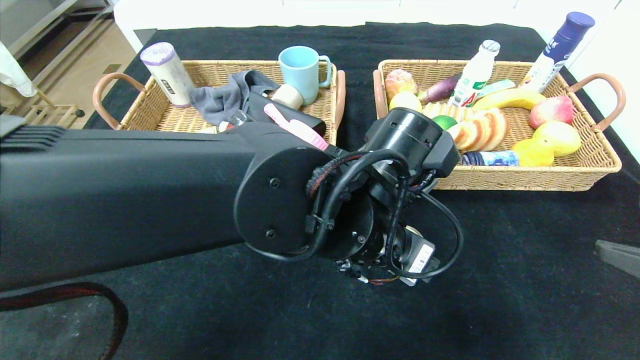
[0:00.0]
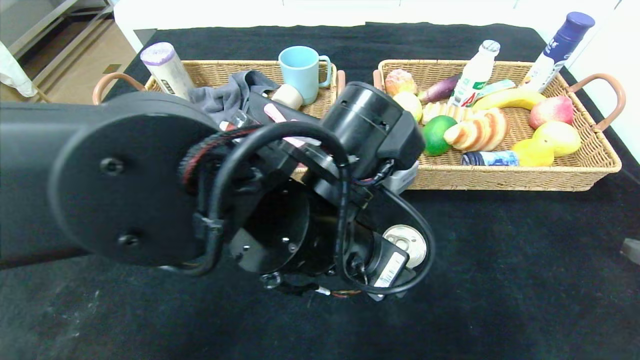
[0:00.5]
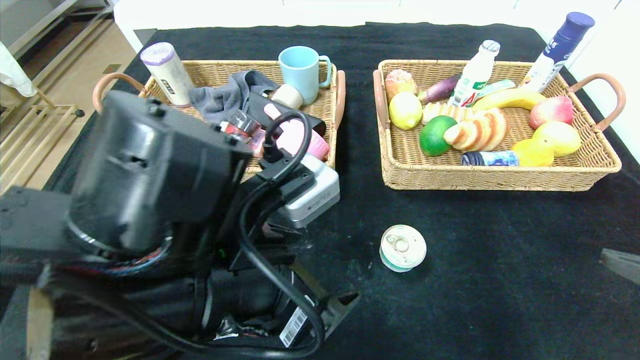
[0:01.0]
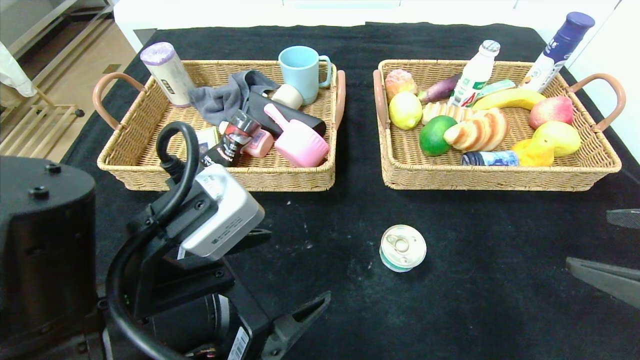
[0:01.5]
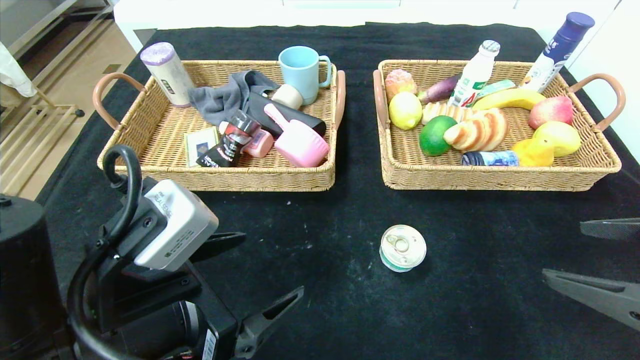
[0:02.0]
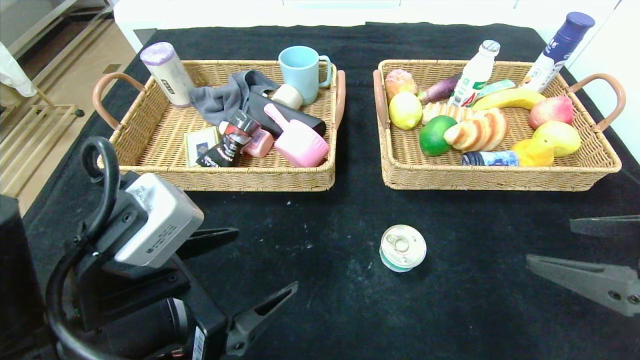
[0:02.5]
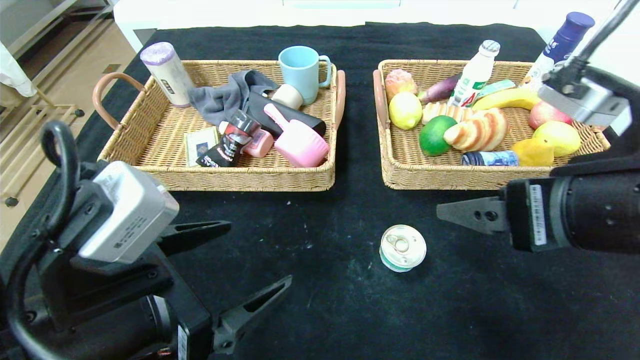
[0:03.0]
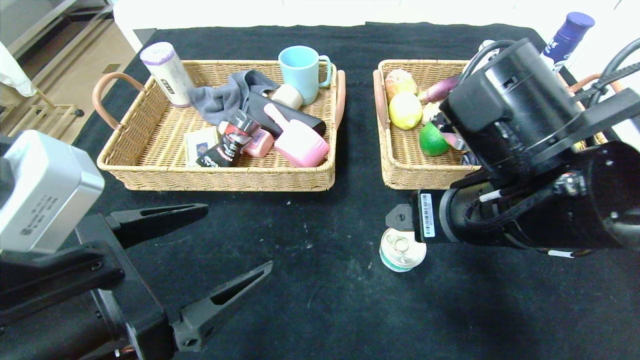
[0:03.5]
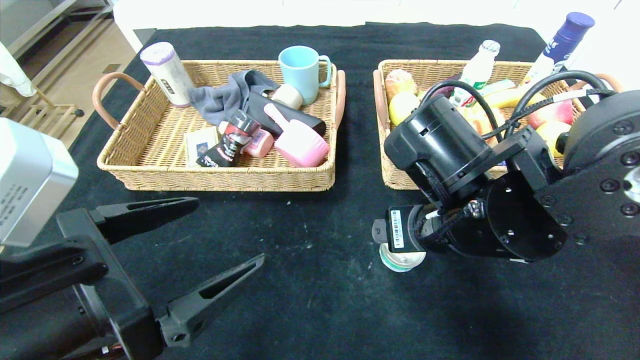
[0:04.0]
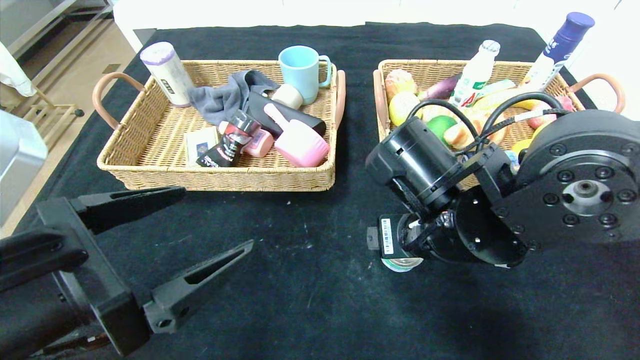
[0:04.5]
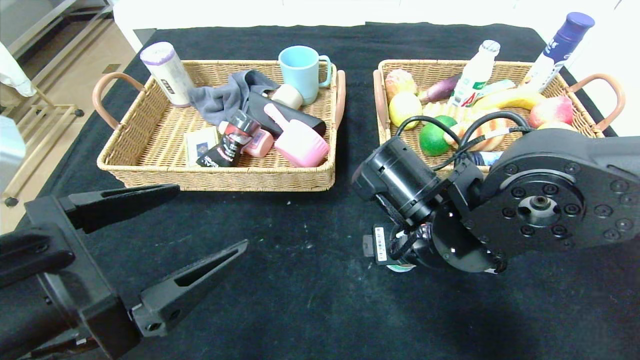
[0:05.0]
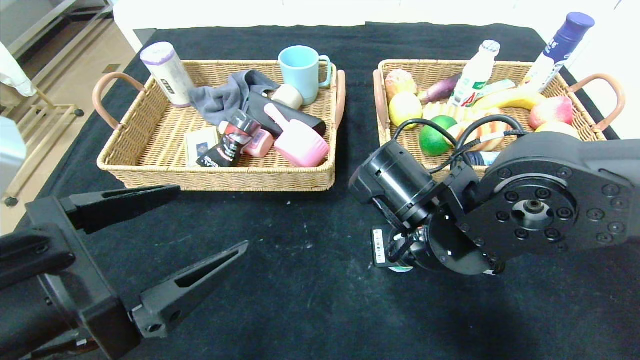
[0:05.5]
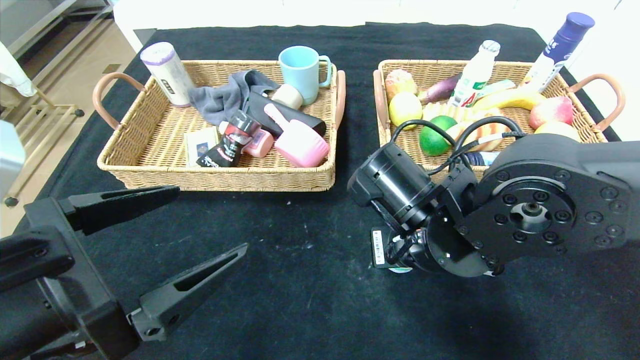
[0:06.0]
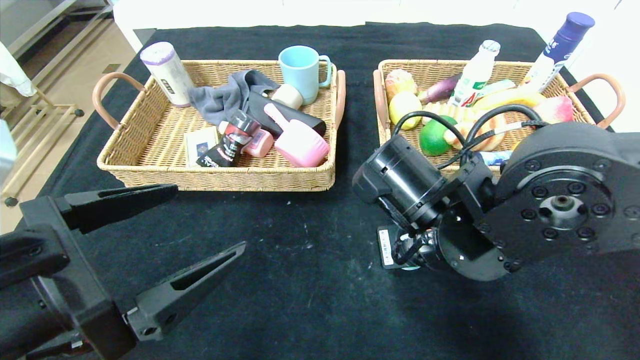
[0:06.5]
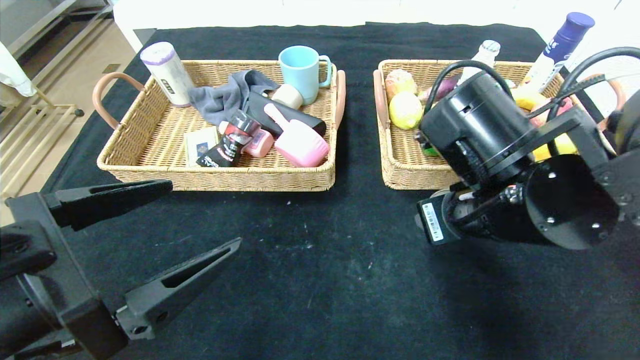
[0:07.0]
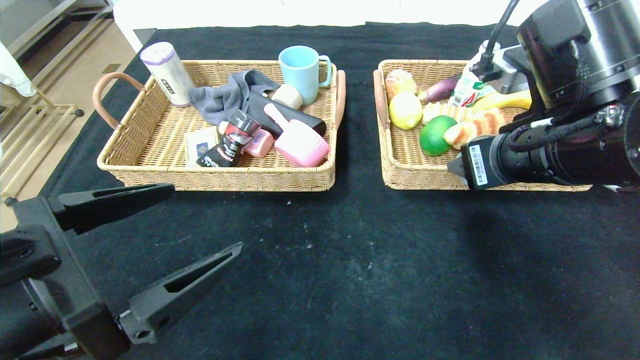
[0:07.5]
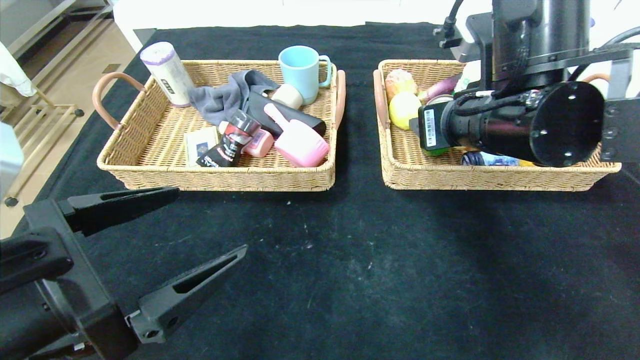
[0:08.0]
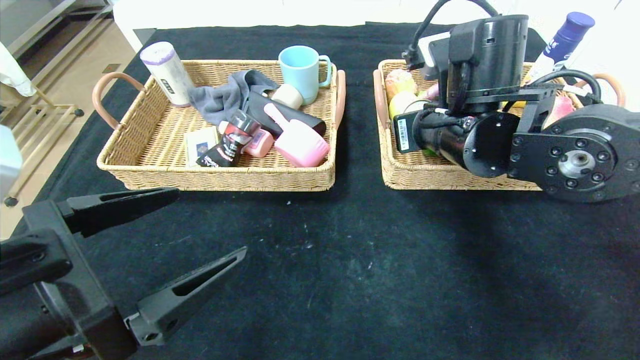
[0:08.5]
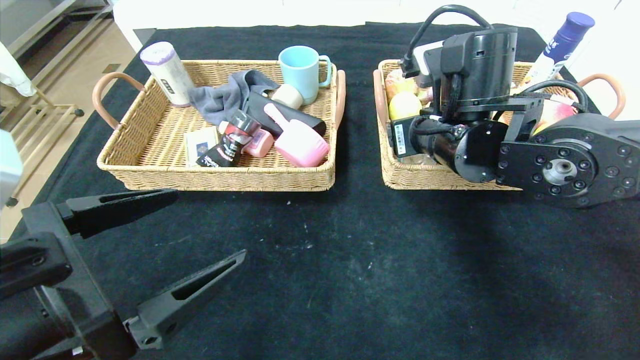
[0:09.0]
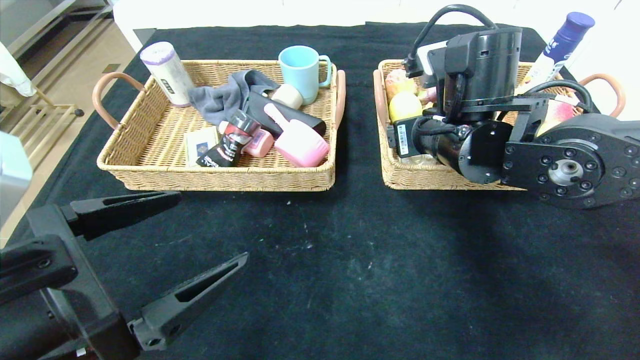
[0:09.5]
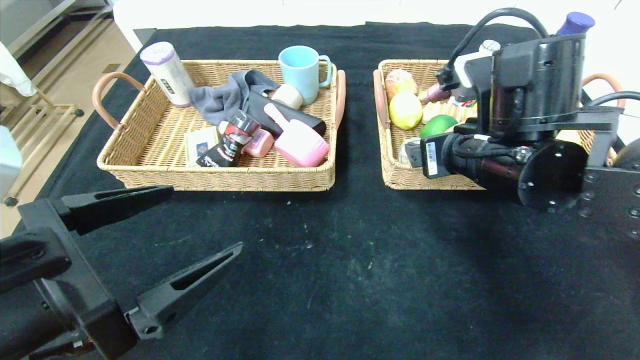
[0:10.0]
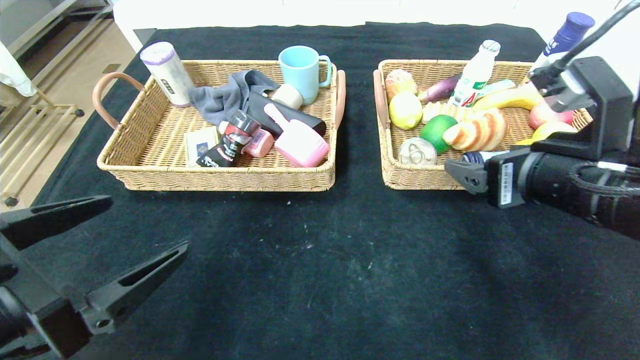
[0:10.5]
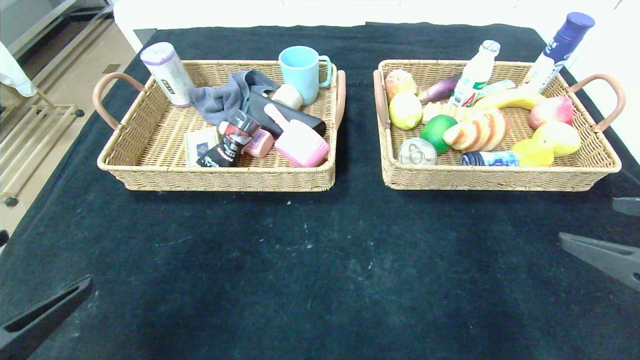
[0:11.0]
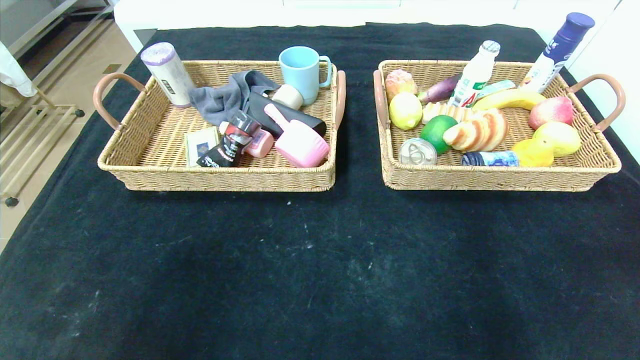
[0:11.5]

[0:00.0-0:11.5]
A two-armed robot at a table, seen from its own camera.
Step, 0:00.0 to 0:09.0: Grasp the can and put it in the right basket.
0:00.0 to 0:02.0: The left gripper moves to the left and backward, approximately 20 cm.
0:02.0 to 0:04.0: The left gripper ends up approximately 5 cm from where it was. Meanwhile the right gripper is displaced to the left and forward by some 20 cm.
0:06.0 to 0:07.5: The right gripper is displaced upward and to the right by approximately 15 cm.
0:07.5 to 0:09.5: The right gripper shifts about 10 cm forward.
0:09.5 to 0:11.5: The left gripper is displaced backward and to the left by roughly 15 cm, while the right gripper travels backward and to the right by roughly 35 cm.

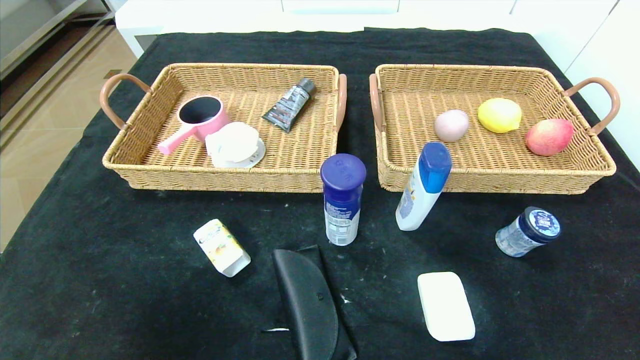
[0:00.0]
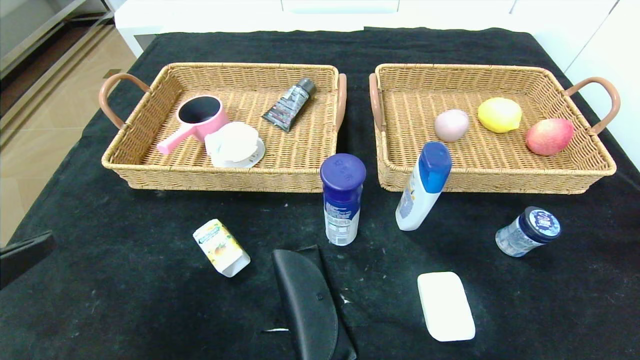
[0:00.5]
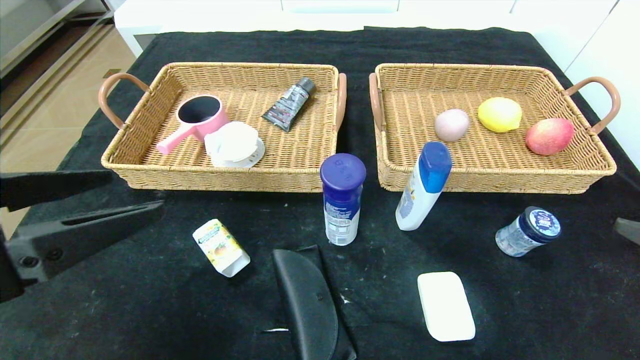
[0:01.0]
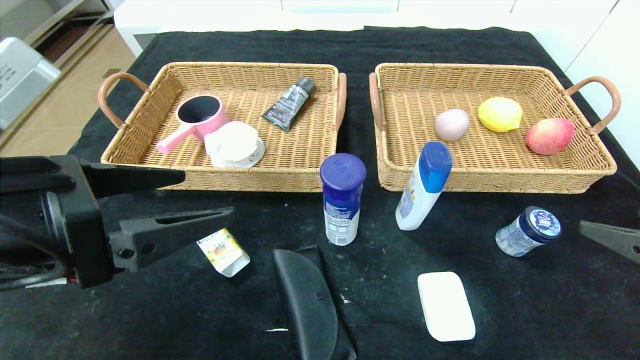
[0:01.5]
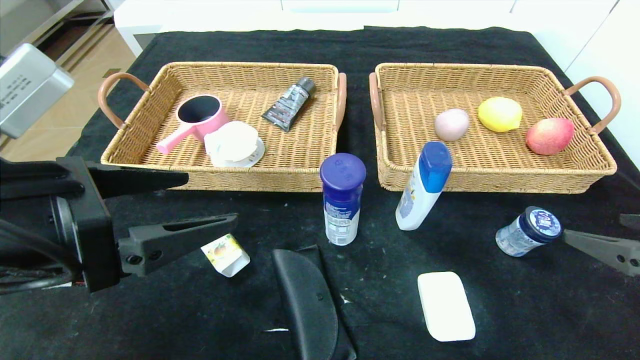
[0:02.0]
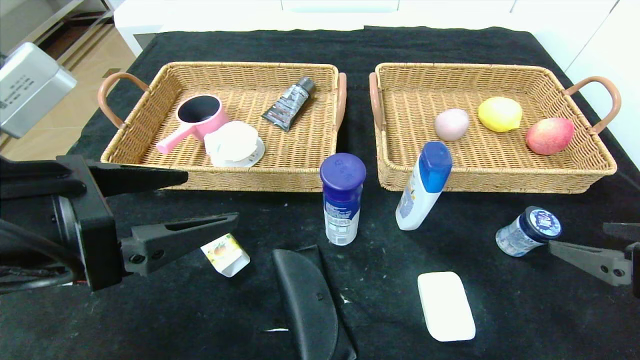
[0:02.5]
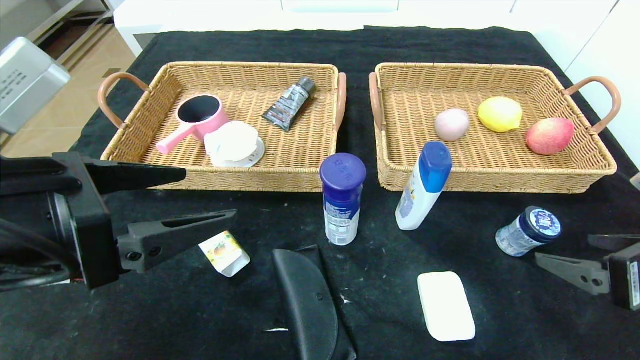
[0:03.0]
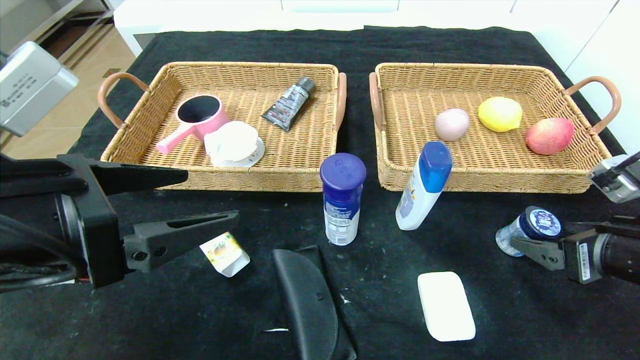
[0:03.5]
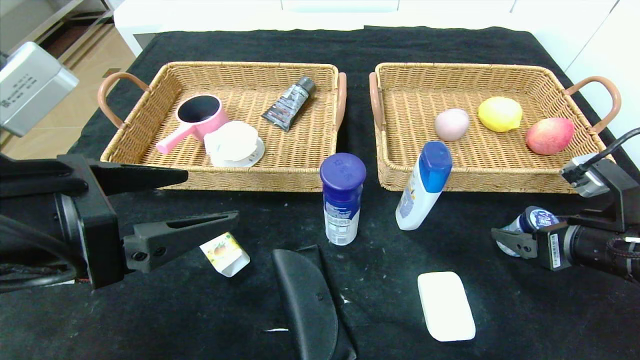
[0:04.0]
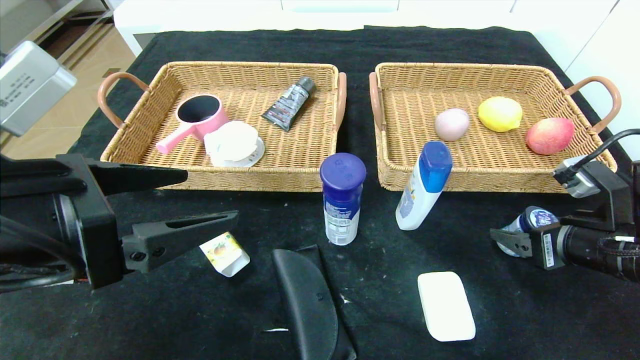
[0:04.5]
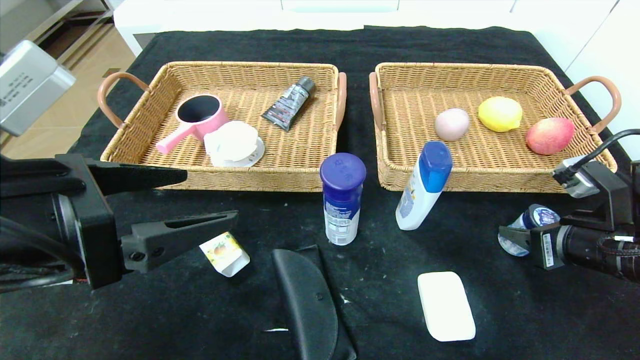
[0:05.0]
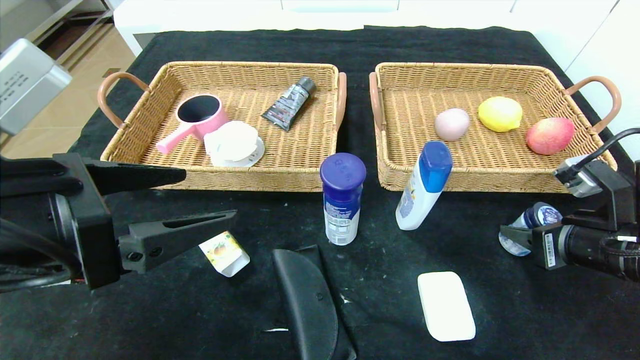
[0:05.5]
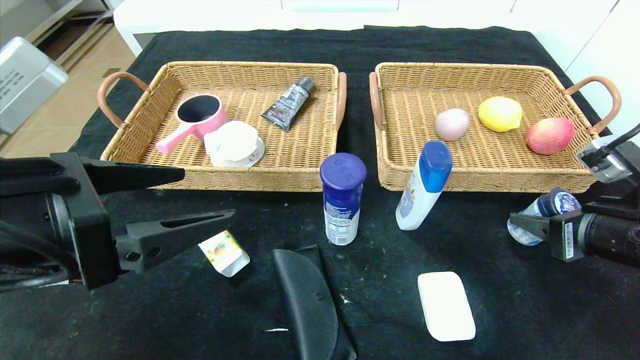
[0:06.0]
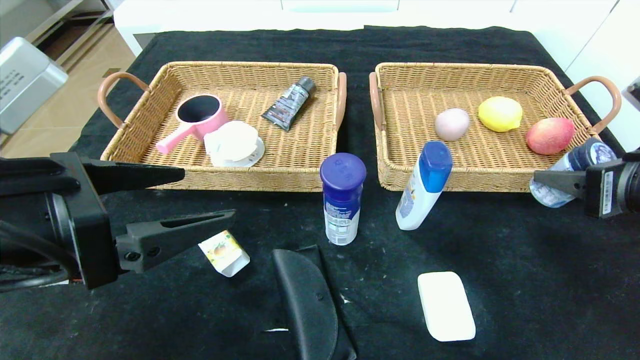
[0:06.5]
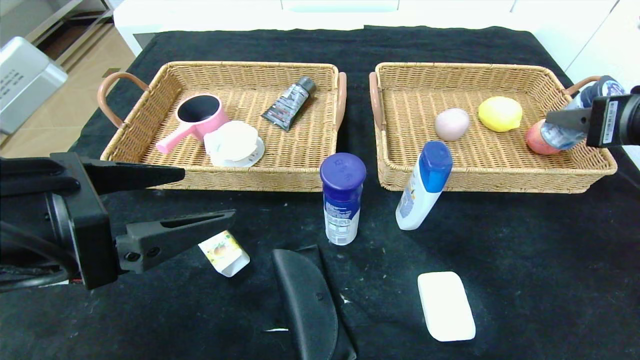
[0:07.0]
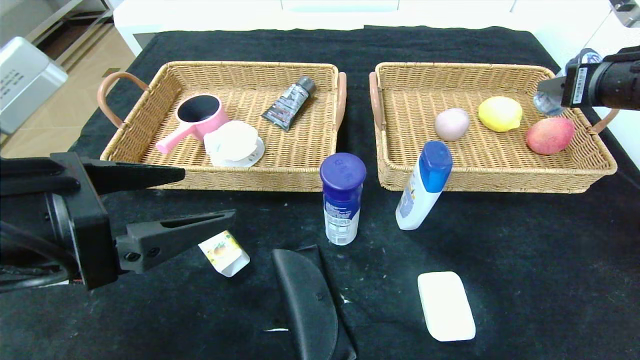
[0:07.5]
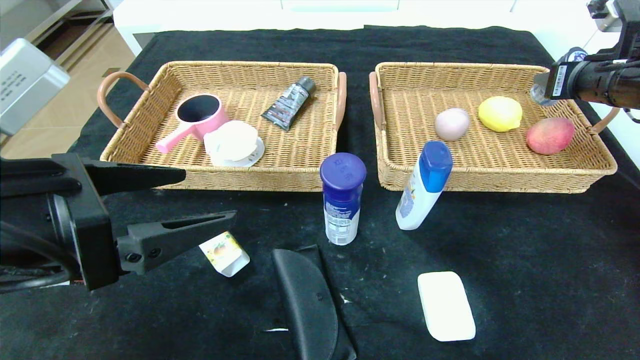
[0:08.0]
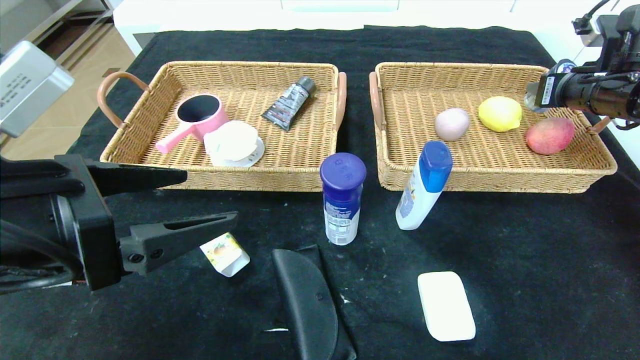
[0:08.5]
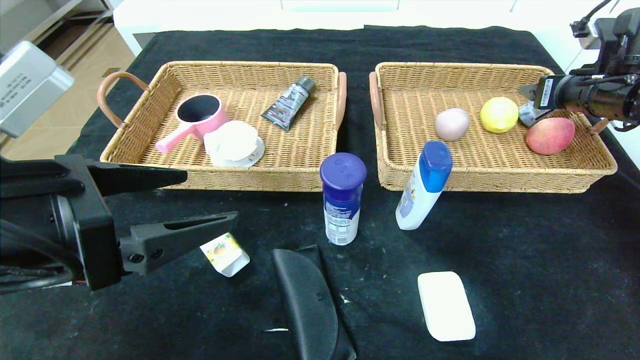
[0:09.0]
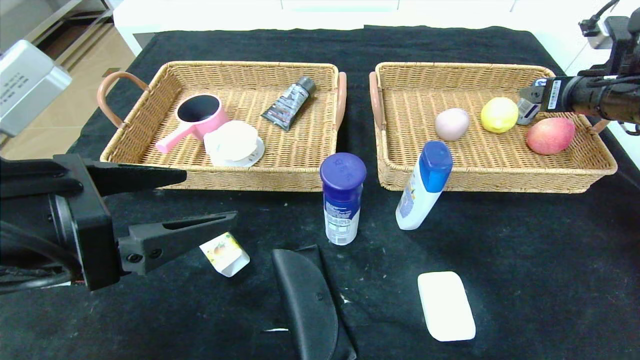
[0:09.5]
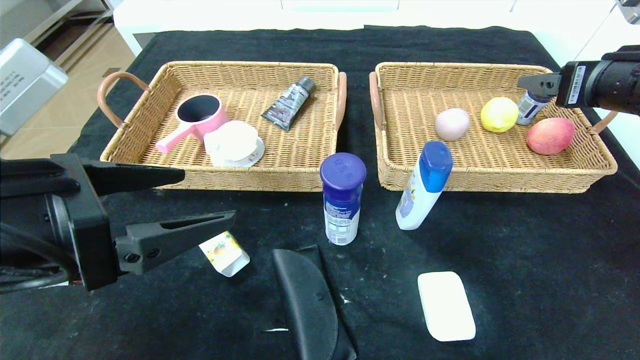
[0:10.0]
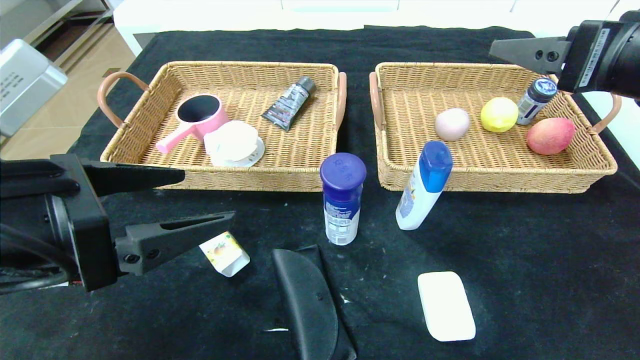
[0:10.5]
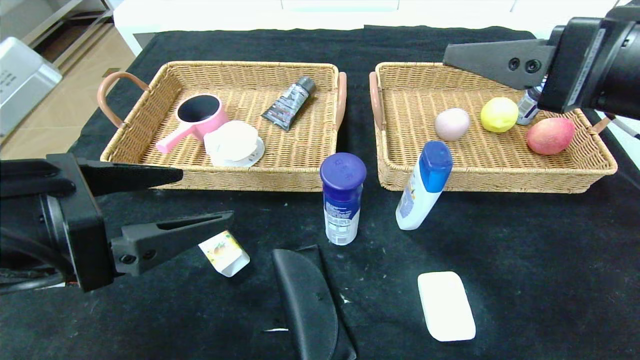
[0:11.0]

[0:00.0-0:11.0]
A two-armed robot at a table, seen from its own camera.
Step, 0:00.0 to 0:09.0: Grasp the round chewing gum and put it in the right basket.
0:00.0 to 0:02.0: The right gripper heads forward and upward, covering roughly 20 cm; the left gripper moves forward, upward and to the right, some 20 cm.
0:02.0 to 0:03.5: The right gripper shifts about 5 cm forward.
0:03.5 to 0:05.5: The right gripper closes.
0:05.5 to 0:07.5: The right gripper moves upward and forward, some 15 cm.
0:07.5 to 0:09.0: The right gripper is displaced forward by about 10 cm, and opens.
0:09.0 to 0:11.0: The right gripper moves backward and to the left, approximately 25 cm.
